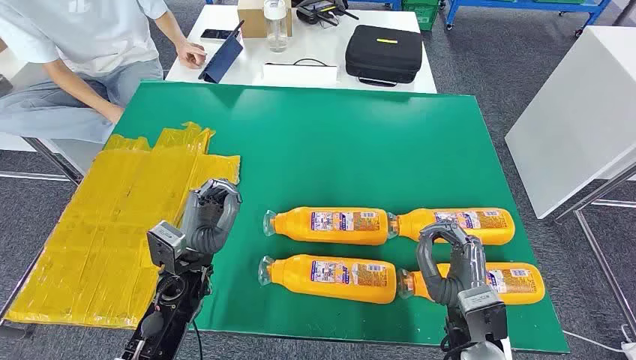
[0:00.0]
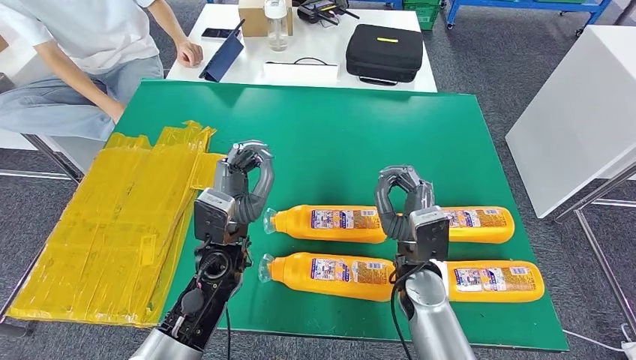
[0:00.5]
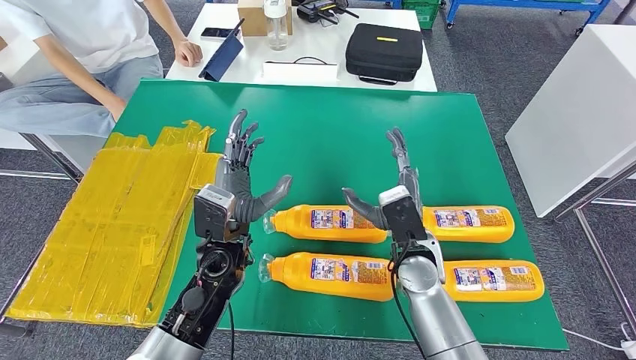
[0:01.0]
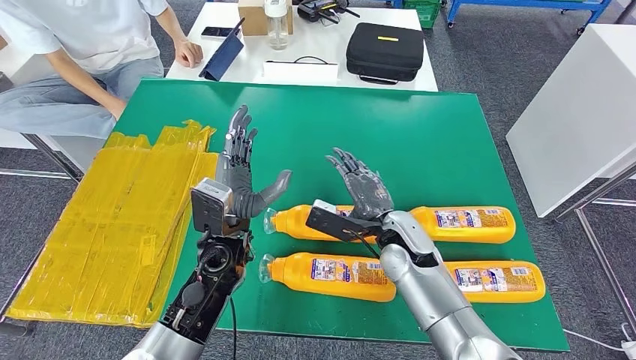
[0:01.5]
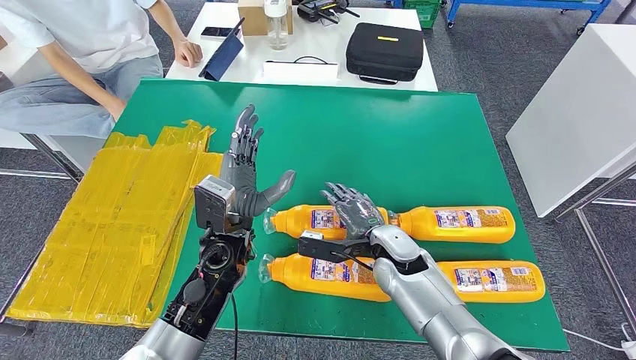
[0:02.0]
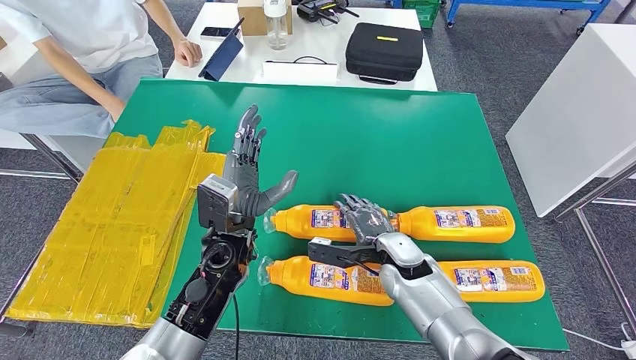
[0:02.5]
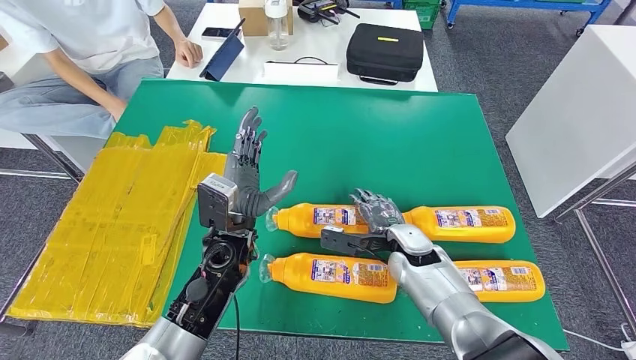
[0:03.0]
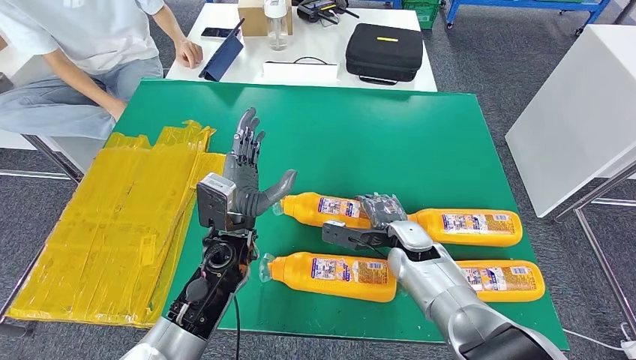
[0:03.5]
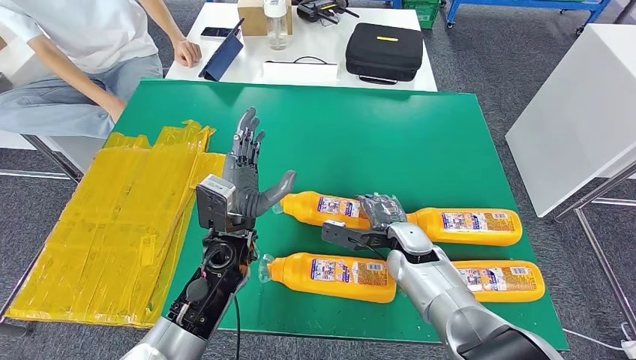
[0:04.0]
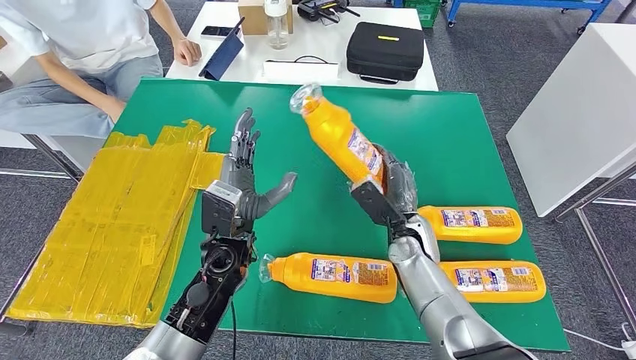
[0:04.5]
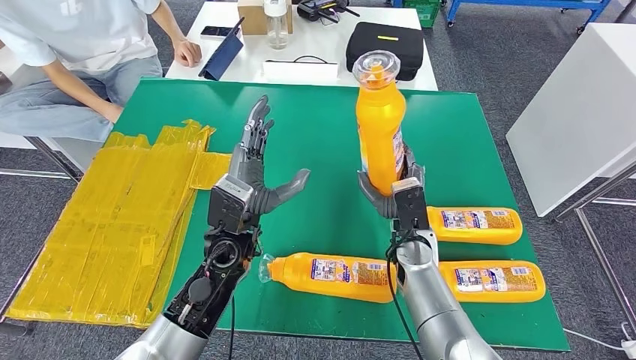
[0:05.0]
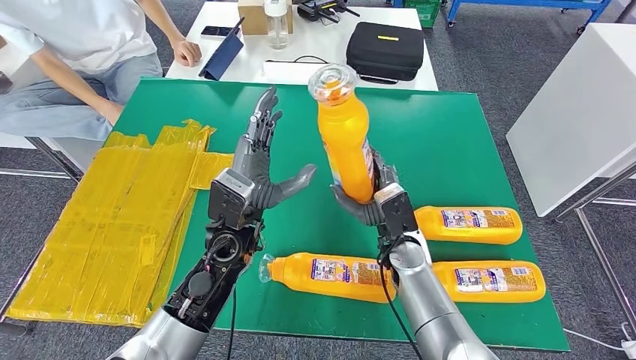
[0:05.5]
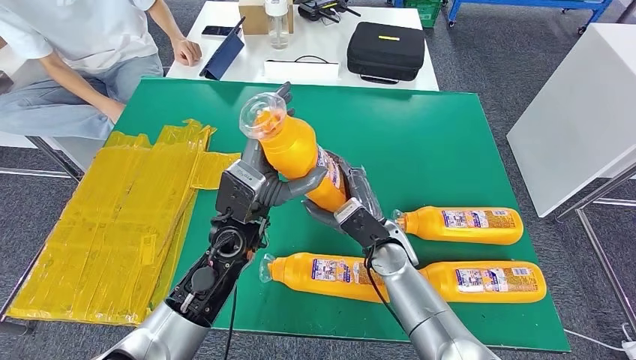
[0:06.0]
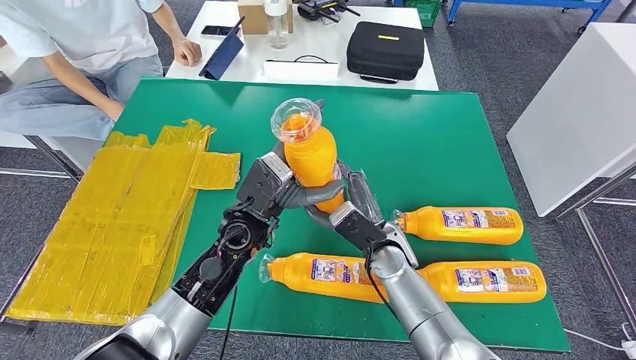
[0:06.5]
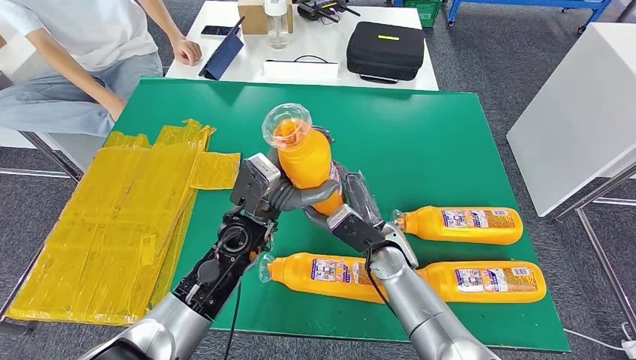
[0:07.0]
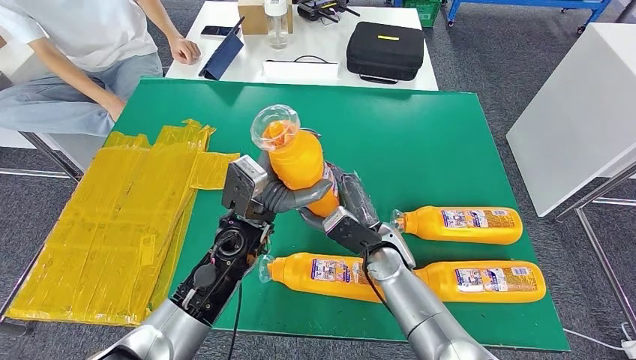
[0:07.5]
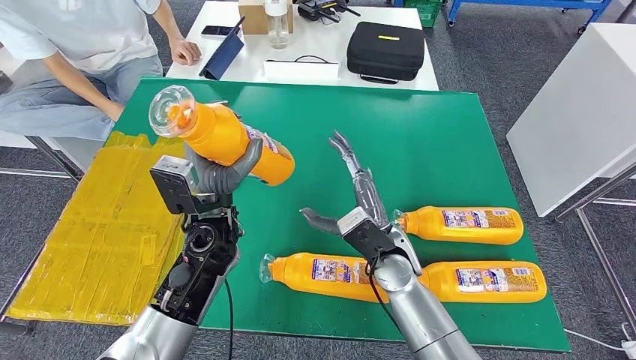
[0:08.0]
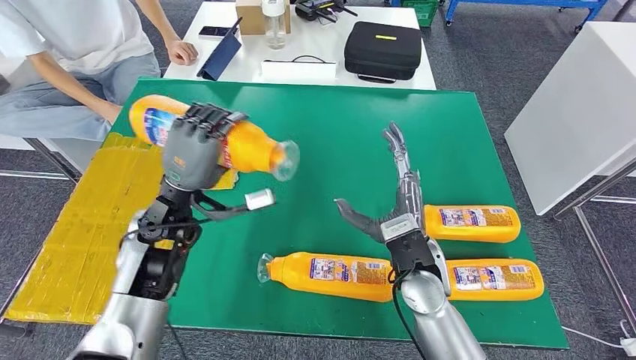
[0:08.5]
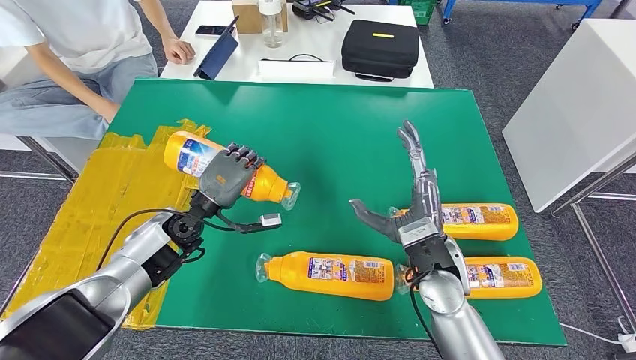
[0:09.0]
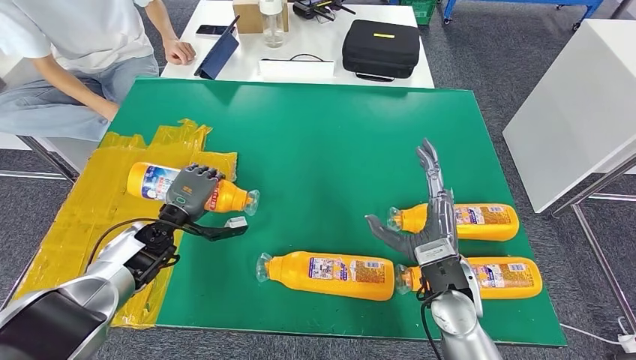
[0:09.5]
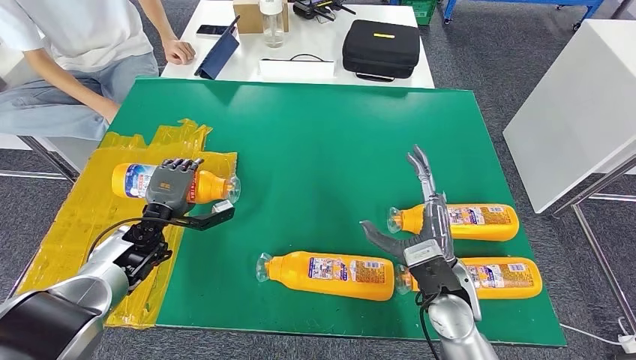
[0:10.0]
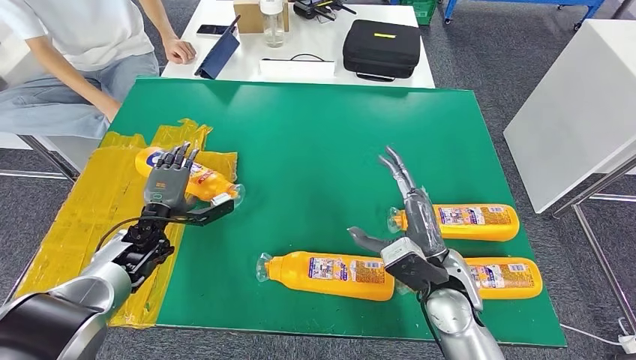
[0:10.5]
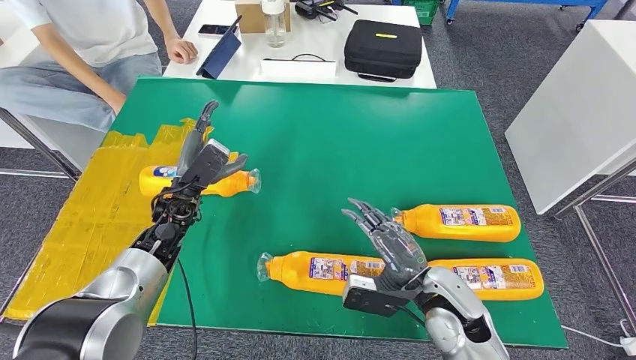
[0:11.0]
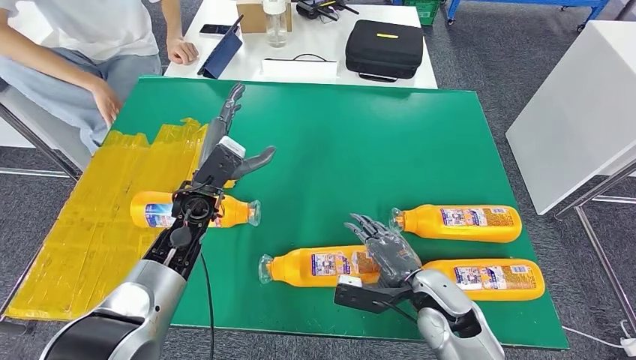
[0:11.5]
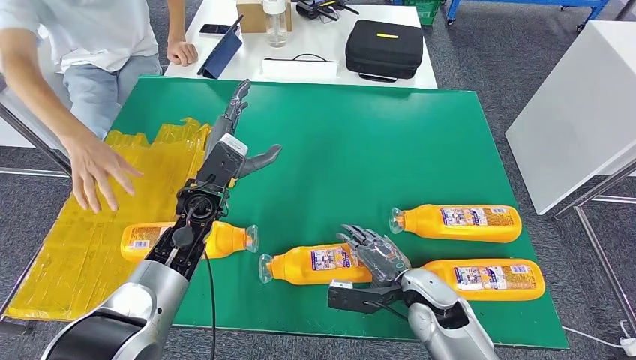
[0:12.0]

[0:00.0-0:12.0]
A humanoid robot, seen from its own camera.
Step, 0:00.0 to 0:05.0: Take the fast-moving consumer goods bottle from the table.
Step, 0:05.5 to 0:09.5: Flip the fast-moving consumer goods bottle to the front side.
0:02.0 to 0:04.0: The hands stay close to where they were, moving slightly.
0:04.0 to 0:06.0: The right hand heads to the left, covering approximately 5 cm. Meanwhile the left hand changes place by roughly 5 cm.

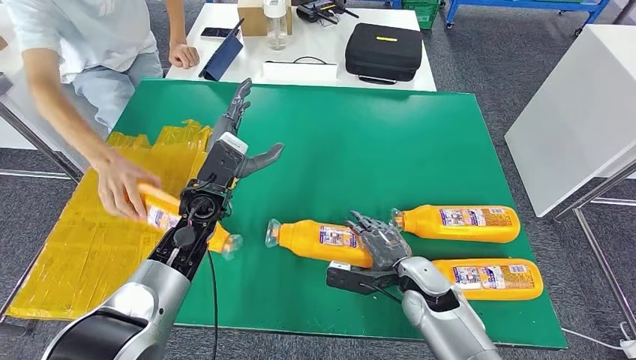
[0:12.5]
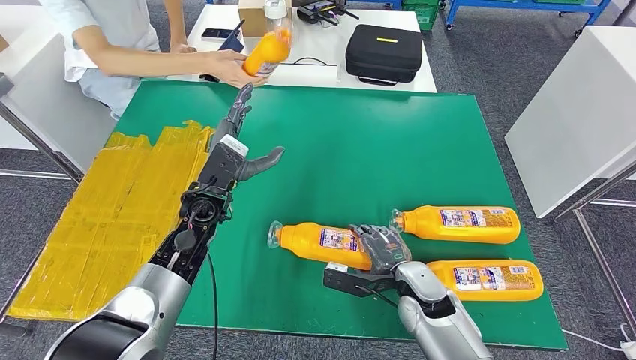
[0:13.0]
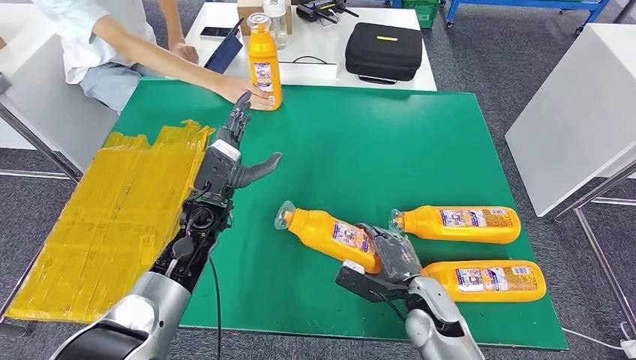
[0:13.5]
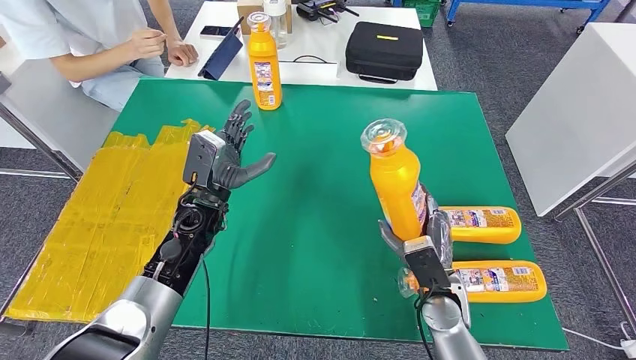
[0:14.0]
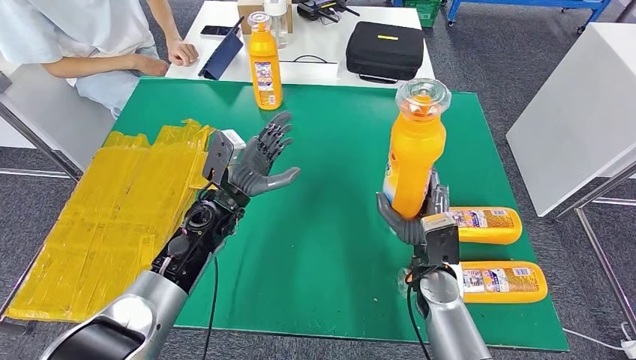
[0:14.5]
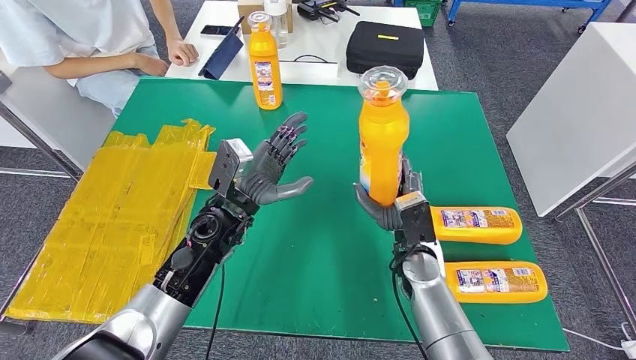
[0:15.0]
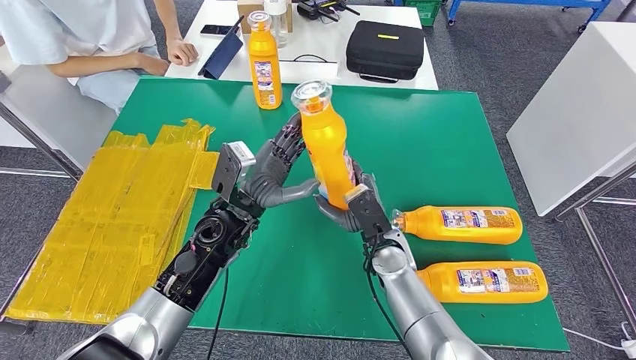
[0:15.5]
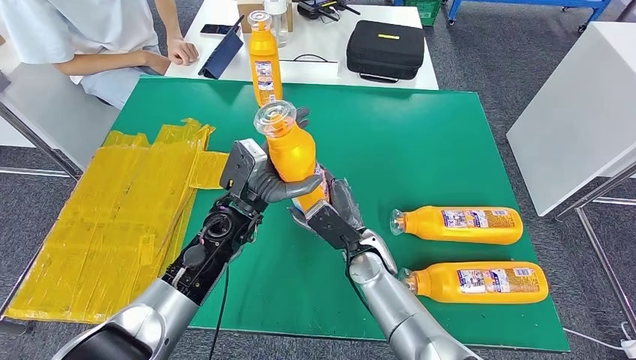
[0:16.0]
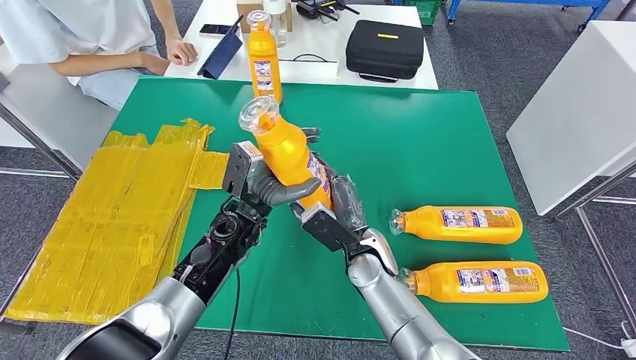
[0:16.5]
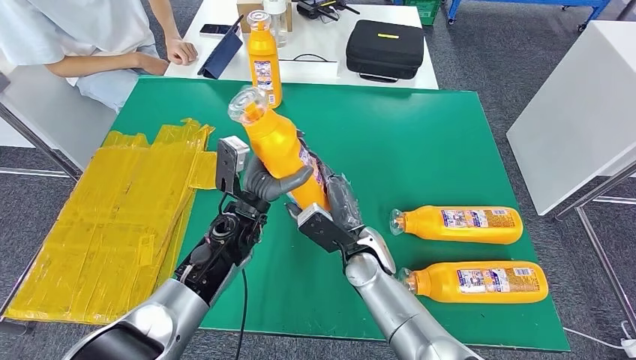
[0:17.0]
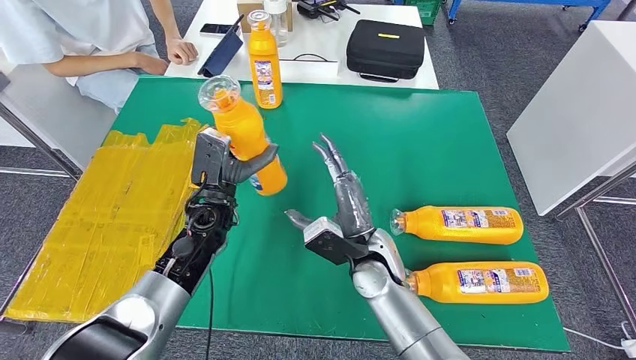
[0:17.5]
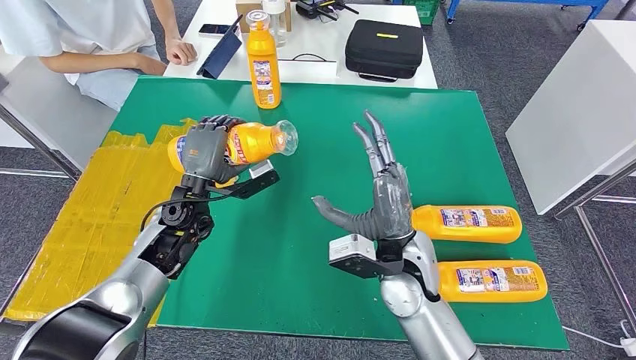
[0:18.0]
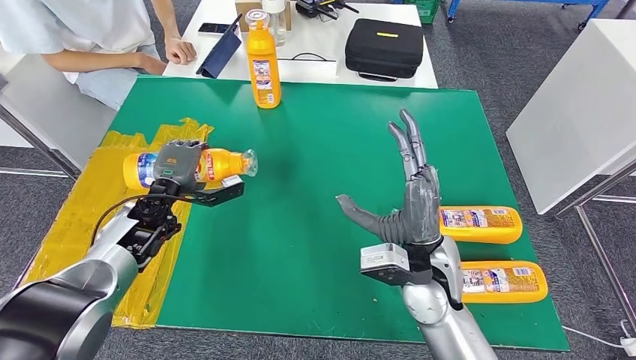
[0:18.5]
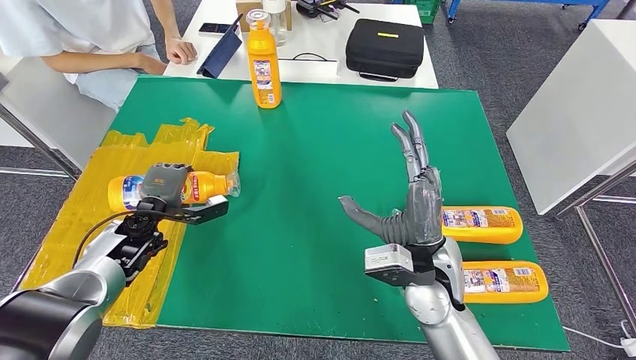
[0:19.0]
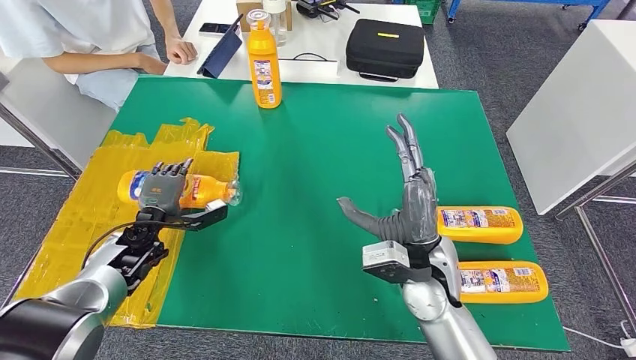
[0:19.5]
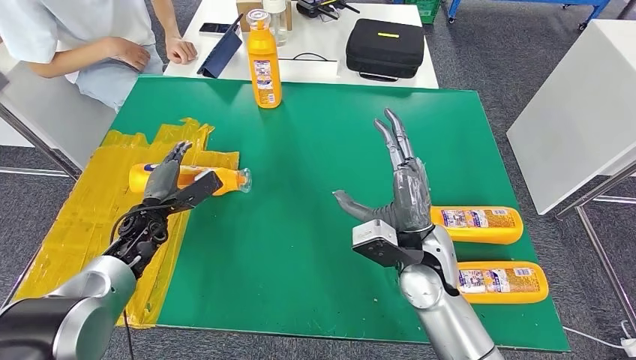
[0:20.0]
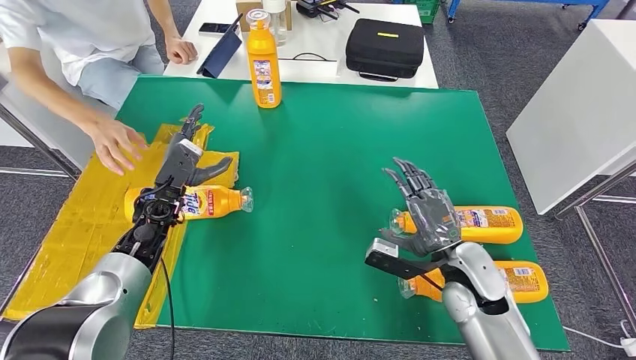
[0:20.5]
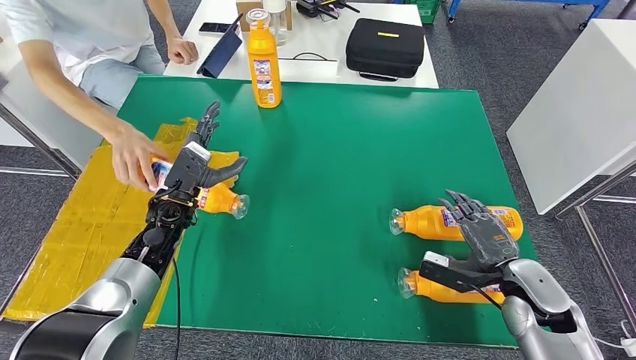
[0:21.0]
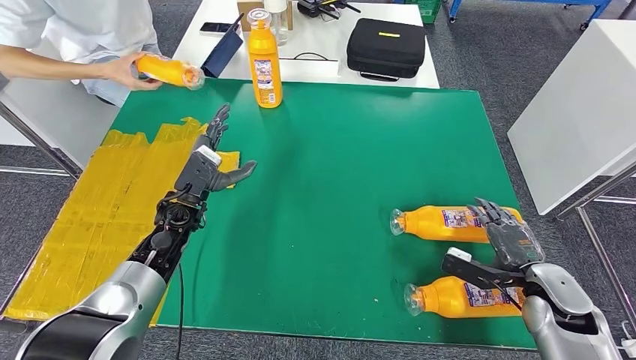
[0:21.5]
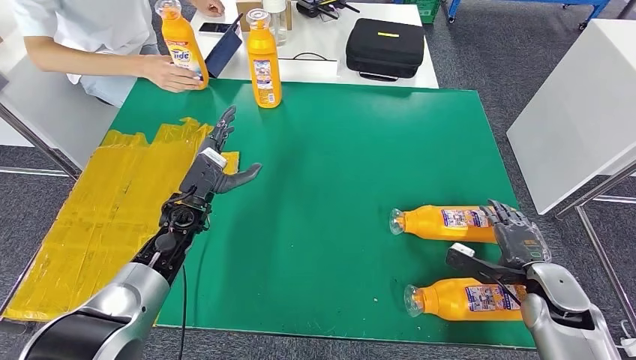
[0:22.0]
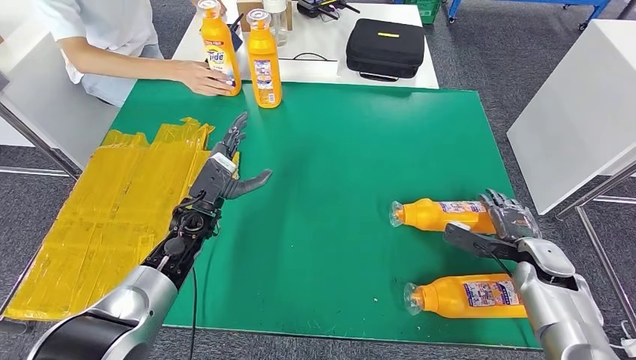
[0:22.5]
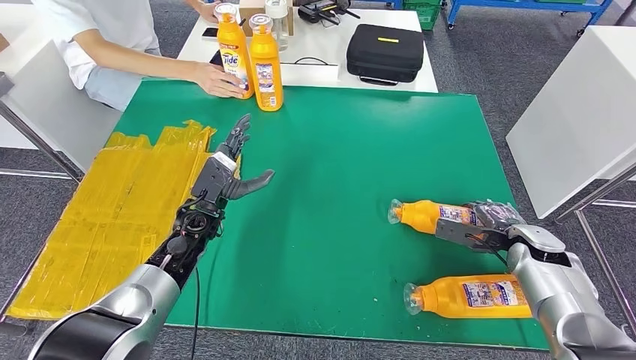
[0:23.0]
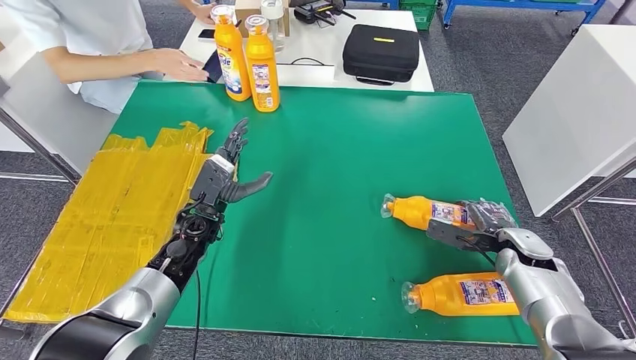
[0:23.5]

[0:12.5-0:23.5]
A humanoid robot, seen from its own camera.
Step, 0:14.0 to 0:18.5: Flip the fast-moving consumer goods bottle to the front side.
